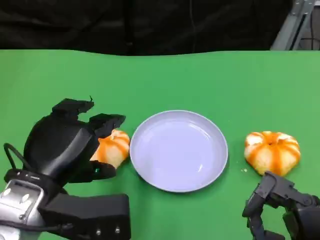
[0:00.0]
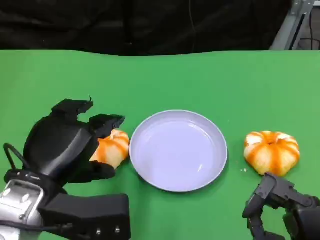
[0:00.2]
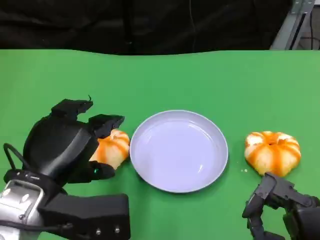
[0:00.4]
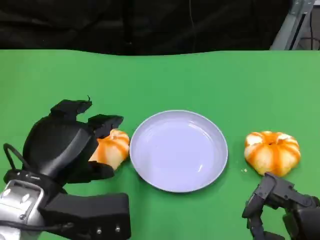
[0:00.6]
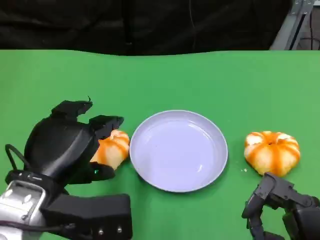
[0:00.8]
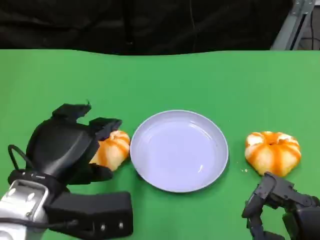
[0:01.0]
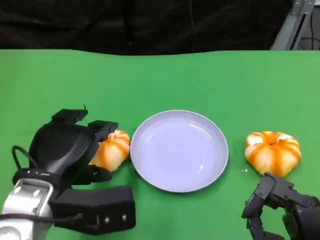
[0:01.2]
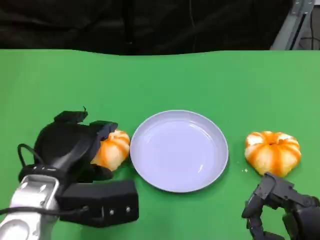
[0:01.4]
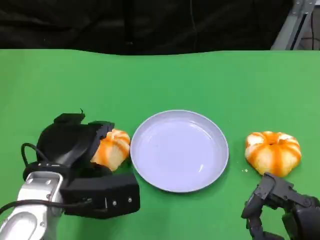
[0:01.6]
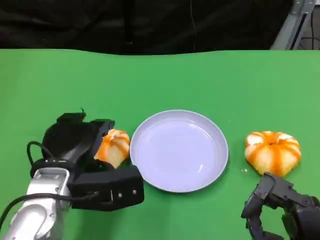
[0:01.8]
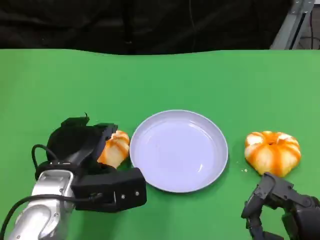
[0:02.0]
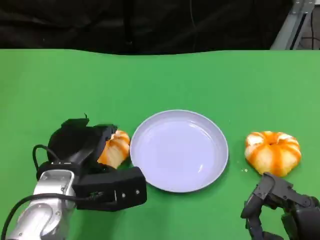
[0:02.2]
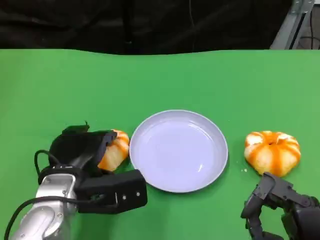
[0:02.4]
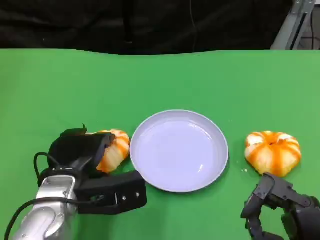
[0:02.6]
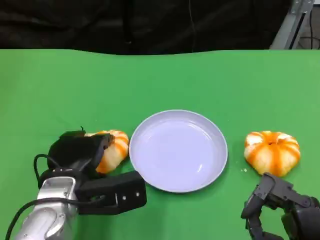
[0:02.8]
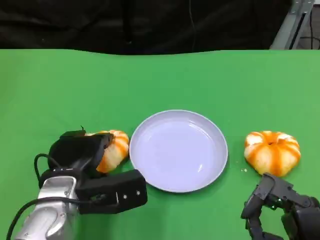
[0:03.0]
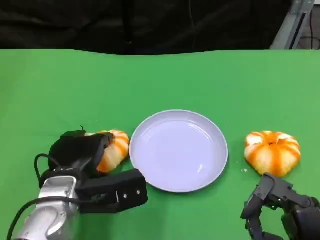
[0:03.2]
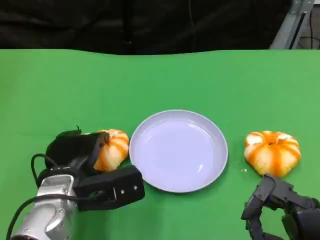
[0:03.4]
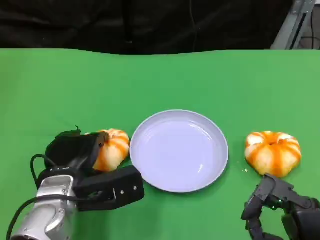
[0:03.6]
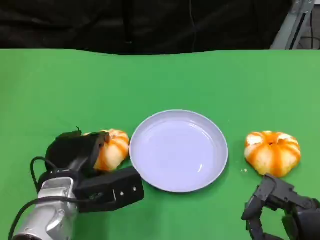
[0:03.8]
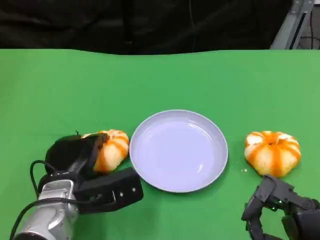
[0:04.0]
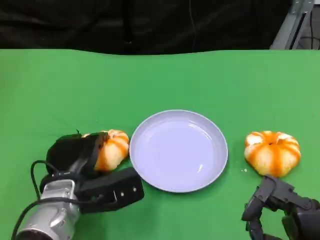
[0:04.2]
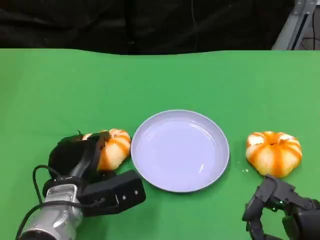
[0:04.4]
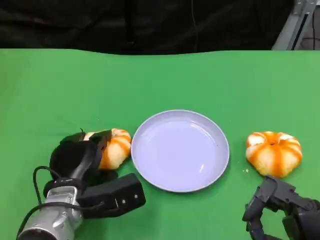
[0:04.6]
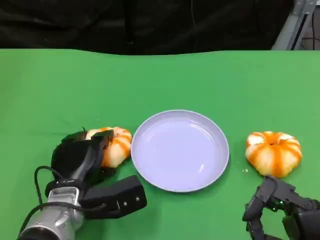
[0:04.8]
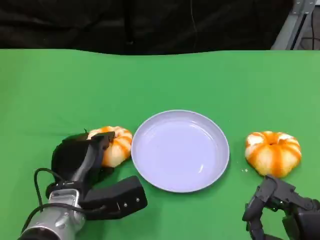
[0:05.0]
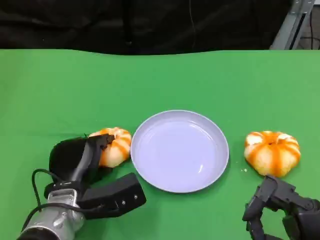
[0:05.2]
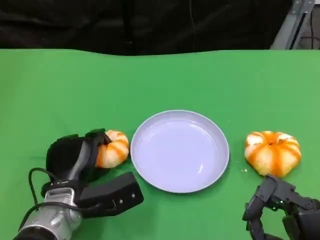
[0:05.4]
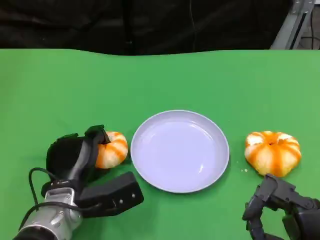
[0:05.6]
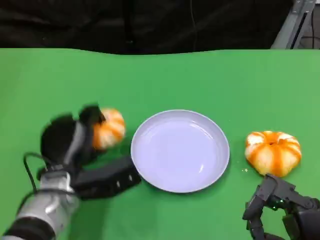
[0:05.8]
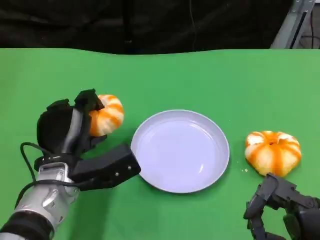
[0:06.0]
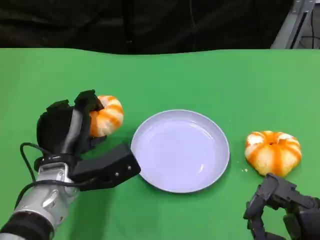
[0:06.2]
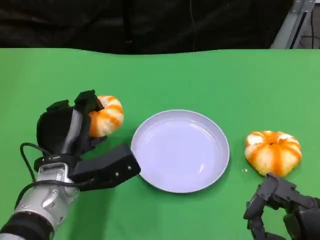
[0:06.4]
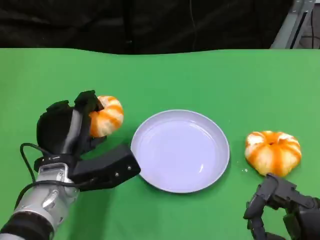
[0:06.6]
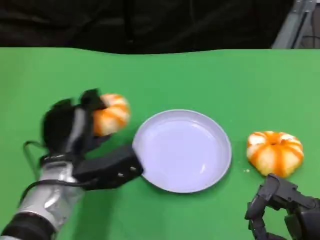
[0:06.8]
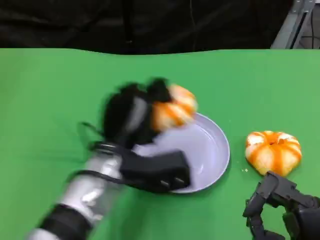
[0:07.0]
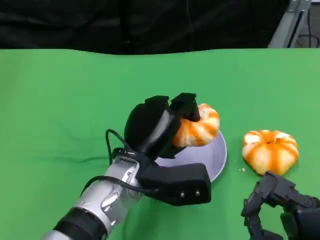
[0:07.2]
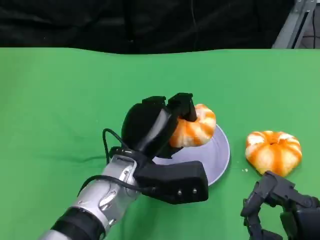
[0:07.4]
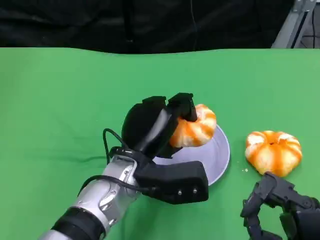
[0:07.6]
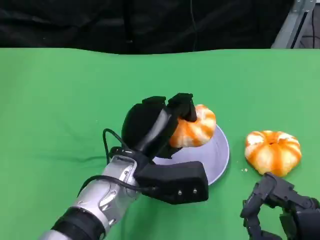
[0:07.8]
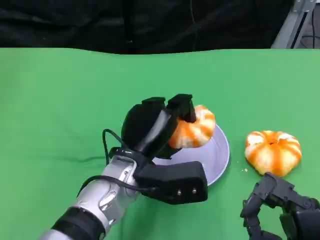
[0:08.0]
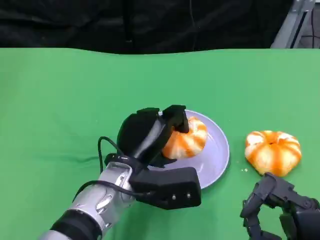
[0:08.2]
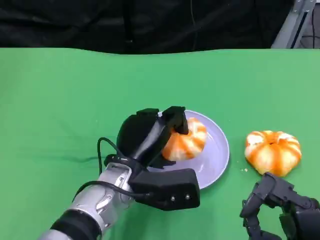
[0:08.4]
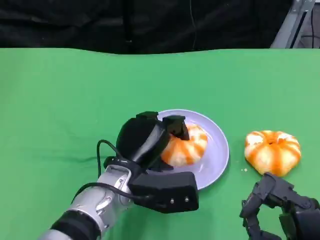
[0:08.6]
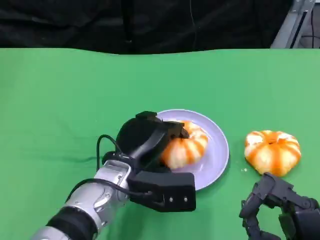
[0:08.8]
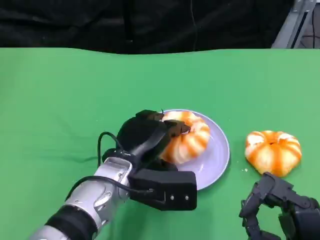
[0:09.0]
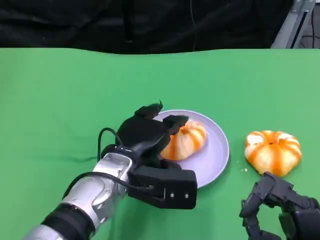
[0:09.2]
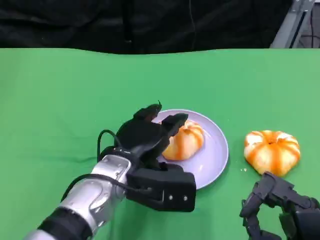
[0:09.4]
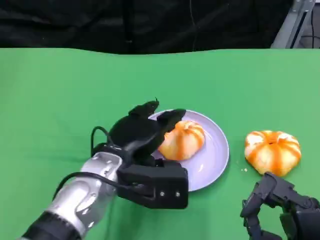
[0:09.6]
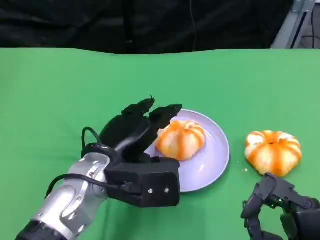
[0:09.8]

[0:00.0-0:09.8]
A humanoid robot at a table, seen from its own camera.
Task of the whole recording: Grasp the bread from the table and place it into the plate.
0:00.0 to 0:01.4: The hands stay close to where they were, moving slightly.
0:01.4 to 0:02.8: The left hand shifts by some 5 cm.
0:02.8 to 0:05.6: The hands make only small movements.
0:05.6 to 0:07.0: The left hand shifts roughly 10 cm to the right and upward.
0:08.4 to 0:09.8: The left hand ends up roughly 5 cm from where it was.

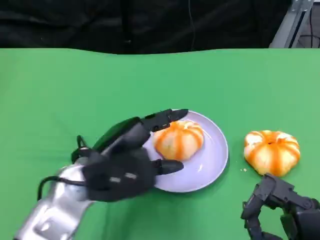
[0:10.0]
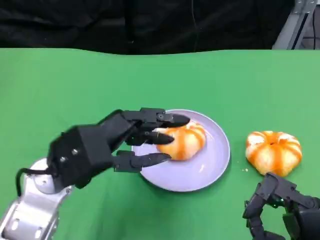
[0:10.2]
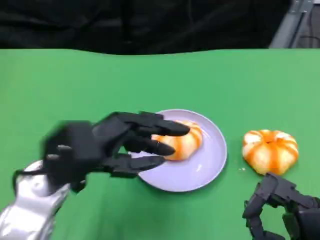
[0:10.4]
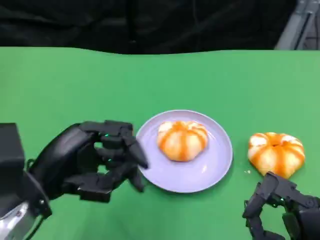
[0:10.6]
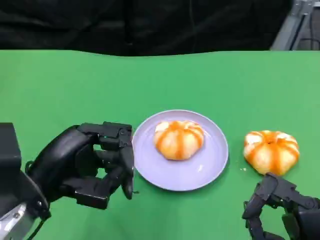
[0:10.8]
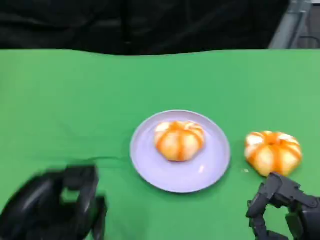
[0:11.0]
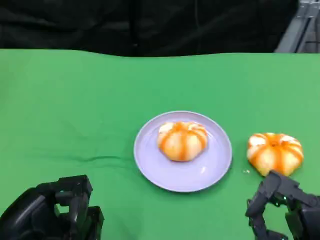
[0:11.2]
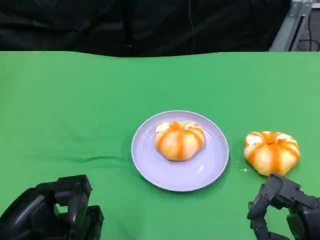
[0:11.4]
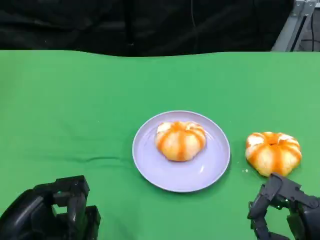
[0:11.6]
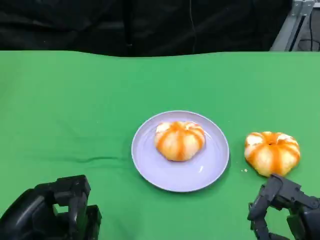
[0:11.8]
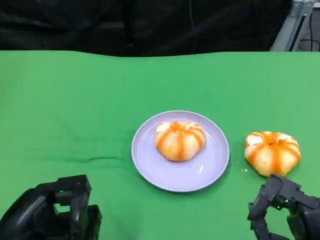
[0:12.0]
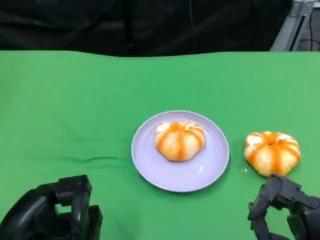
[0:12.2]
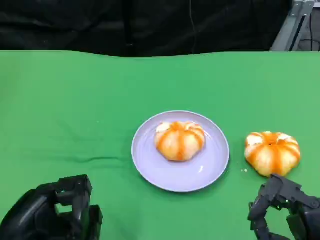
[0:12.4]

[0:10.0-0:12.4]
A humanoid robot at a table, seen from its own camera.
Task of the whole recording: Grasp the bread from the table and place it into the plate.
0:10.0 to 0:11.2: The left hand moves backward and to the left, some 15 cm.
0:11.2 to 0:12.4: The hands move only a little.

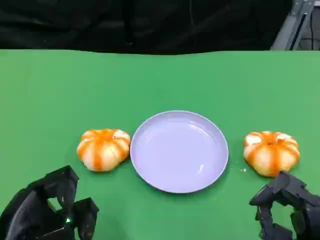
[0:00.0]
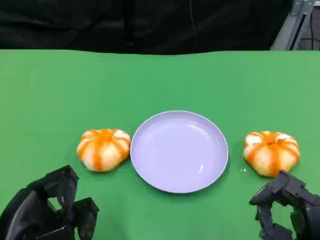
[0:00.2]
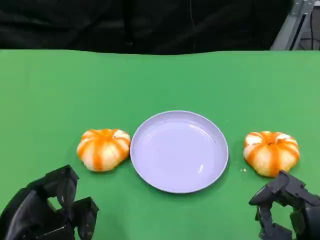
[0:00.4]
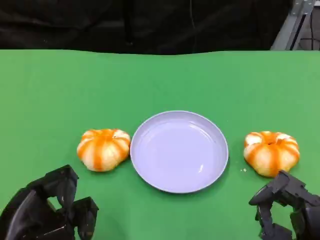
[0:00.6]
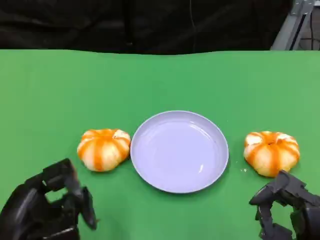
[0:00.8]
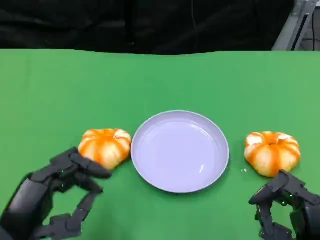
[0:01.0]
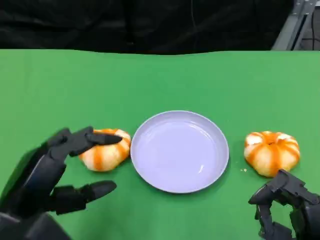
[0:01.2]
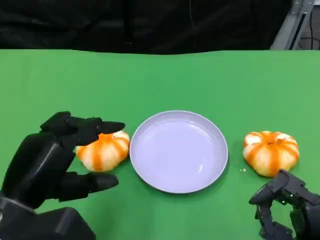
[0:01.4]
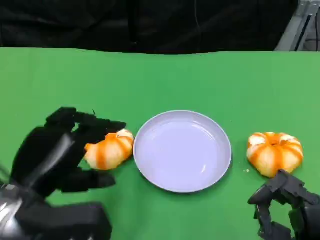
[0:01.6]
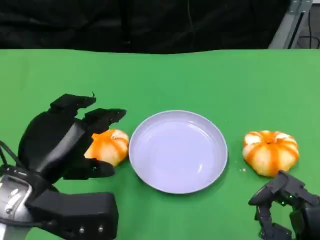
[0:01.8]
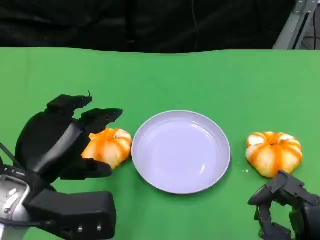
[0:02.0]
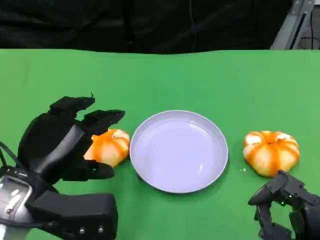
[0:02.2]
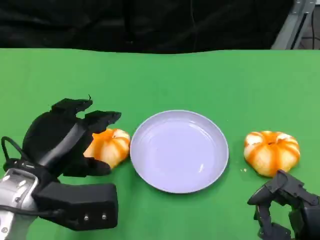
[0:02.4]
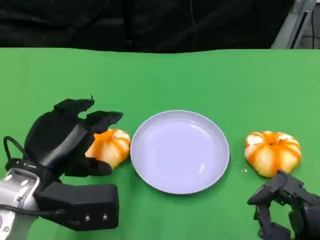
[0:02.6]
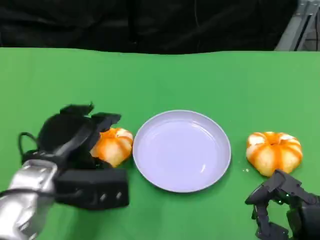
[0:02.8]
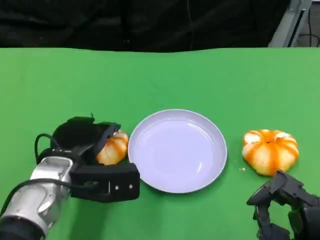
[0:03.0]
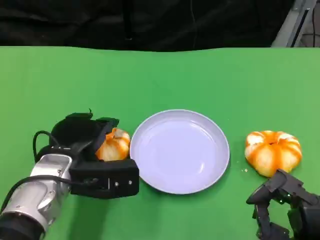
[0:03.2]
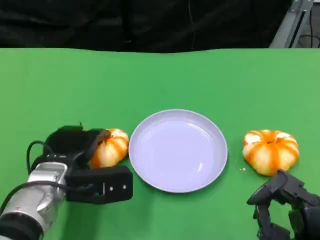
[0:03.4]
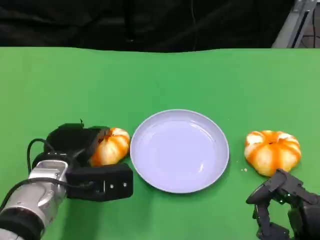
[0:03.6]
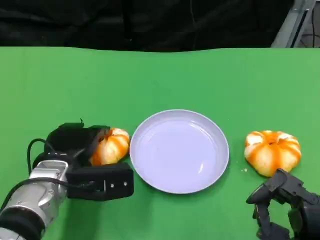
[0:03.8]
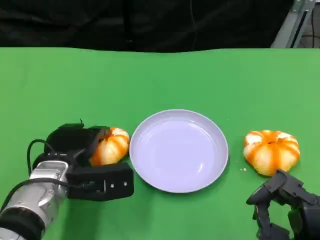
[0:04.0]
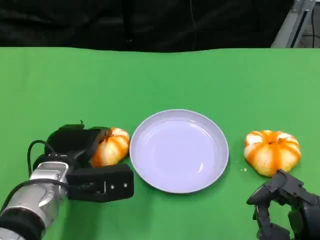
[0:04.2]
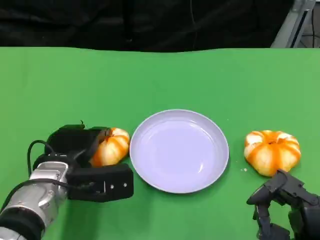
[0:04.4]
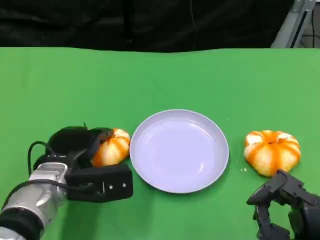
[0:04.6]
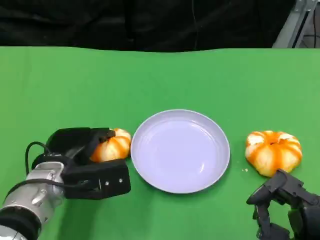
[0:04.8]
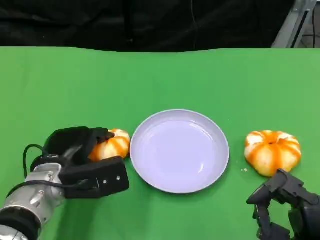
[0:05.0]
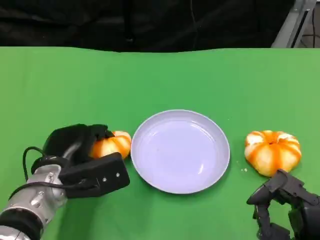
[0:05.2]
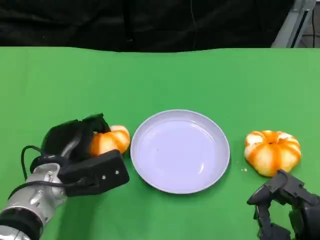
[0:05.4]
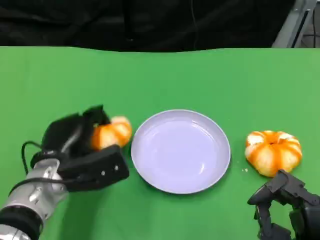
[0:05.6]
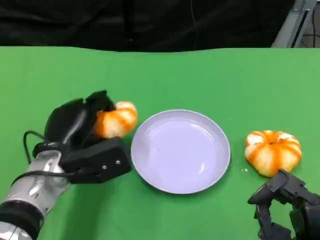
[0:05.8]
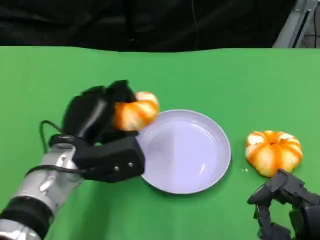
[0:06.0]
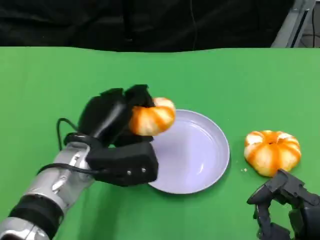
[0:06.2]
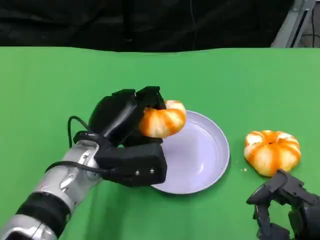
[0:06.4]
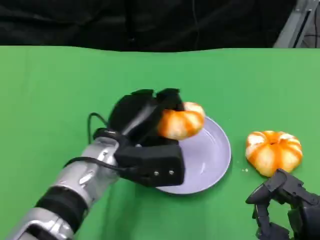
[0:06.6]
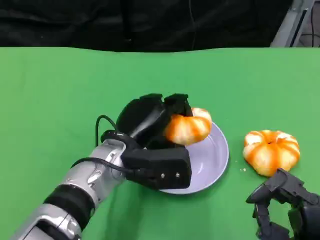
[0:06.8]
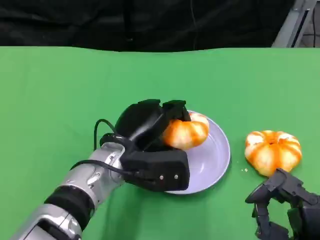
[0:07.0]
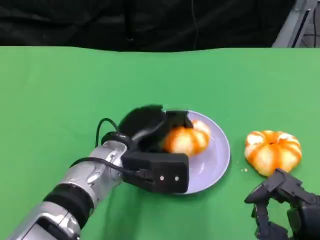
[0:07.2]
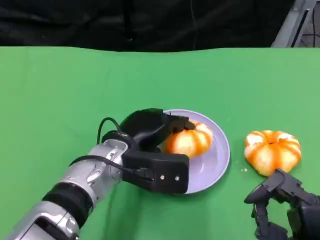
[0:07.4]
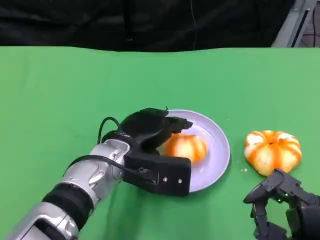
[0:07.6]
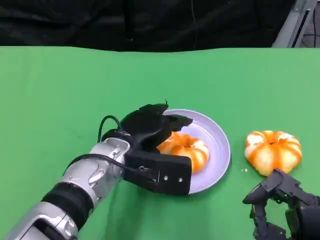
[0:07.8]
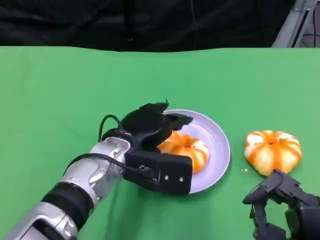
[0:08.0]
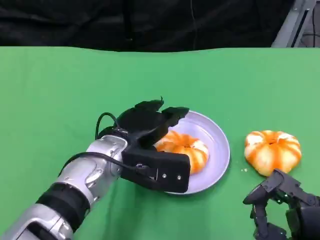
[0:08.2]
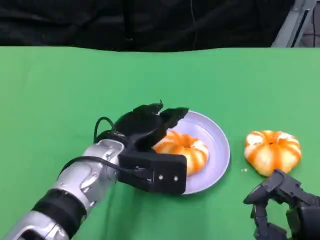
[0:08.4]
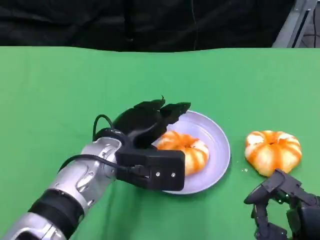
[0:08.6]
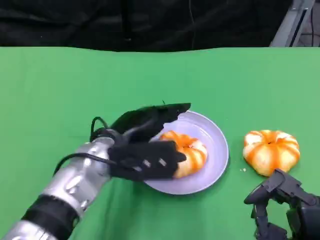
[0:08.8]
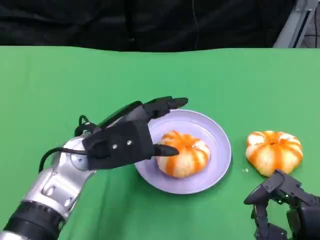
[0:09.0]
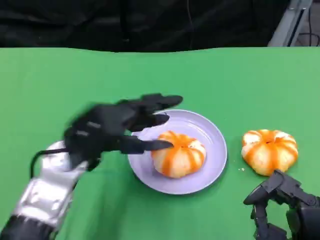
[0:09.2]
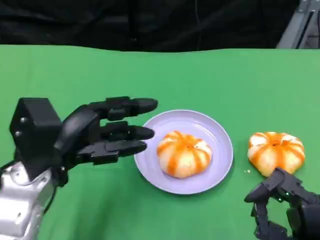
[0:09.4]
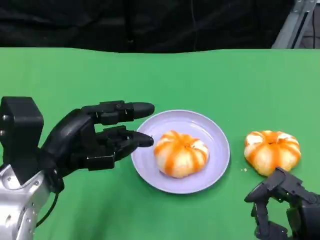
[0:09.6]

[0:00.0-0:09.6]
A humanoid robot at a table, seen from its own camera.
Task of the whole recording: Grasp the bread from the table and place it into the plate.
0:00.0 to 0:01.6: The left hand travels forward by roughly 5 cm.
0:01.6 to 0:03.2: The left hand goes approximately 10 cm forward and downward.
0:03.2 to 0:04.8: The hands stay close to where they were, moving slightly.
0:04.8 to 0:06.4: The left hand moves to the right, roughly 5 cm.
0:08.0 to 0:09.6: The left hand moves to the left, approximately 10 cm.
